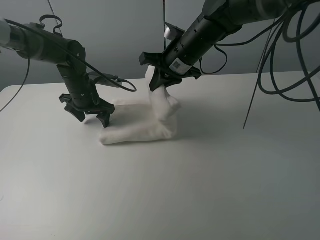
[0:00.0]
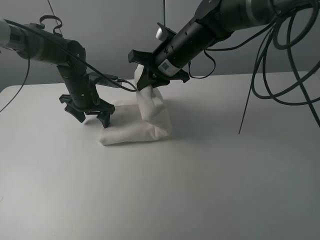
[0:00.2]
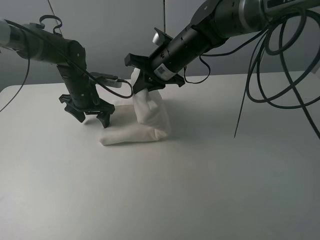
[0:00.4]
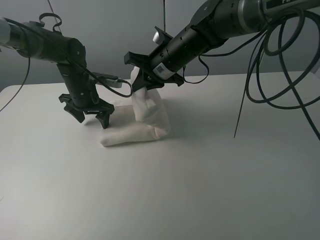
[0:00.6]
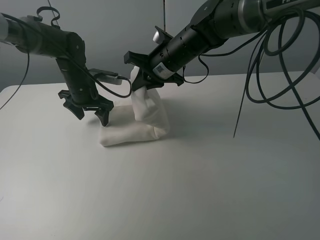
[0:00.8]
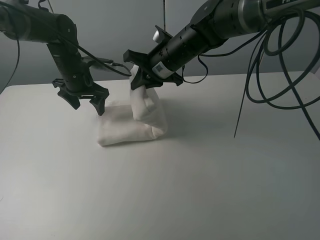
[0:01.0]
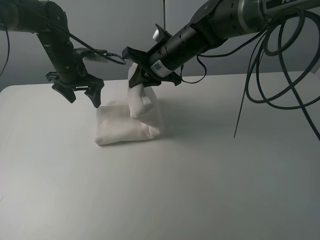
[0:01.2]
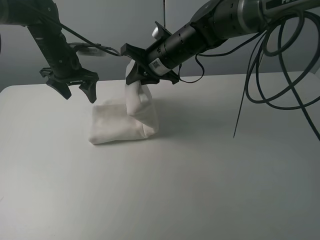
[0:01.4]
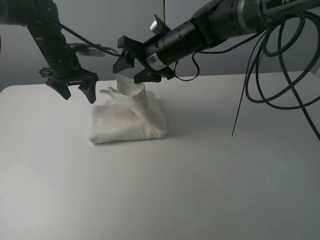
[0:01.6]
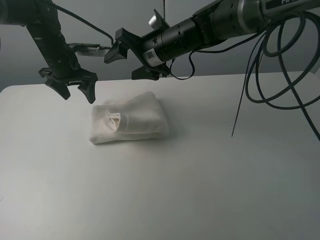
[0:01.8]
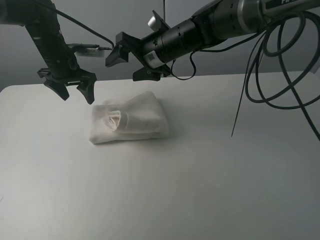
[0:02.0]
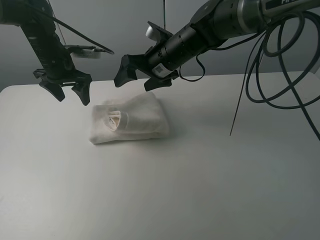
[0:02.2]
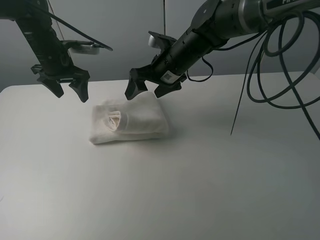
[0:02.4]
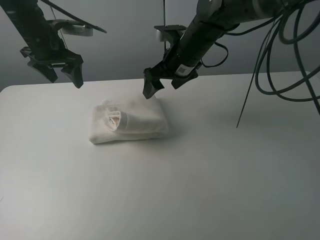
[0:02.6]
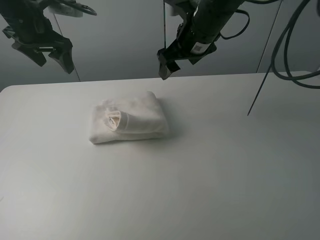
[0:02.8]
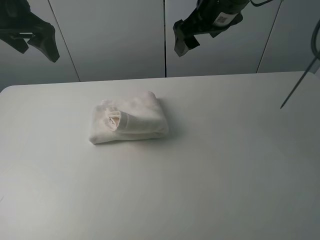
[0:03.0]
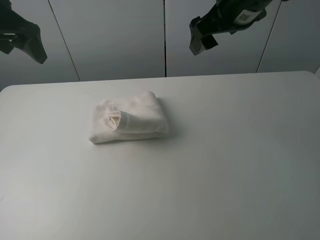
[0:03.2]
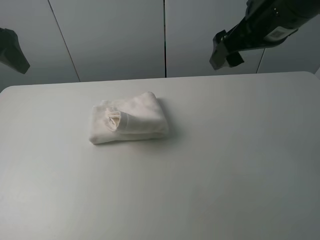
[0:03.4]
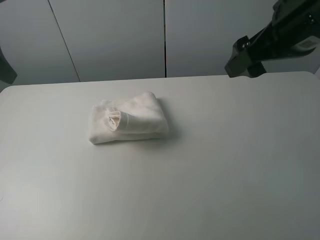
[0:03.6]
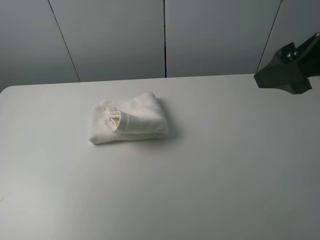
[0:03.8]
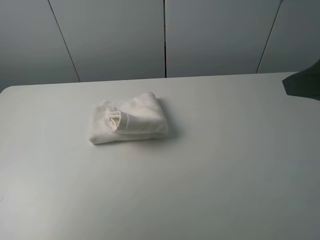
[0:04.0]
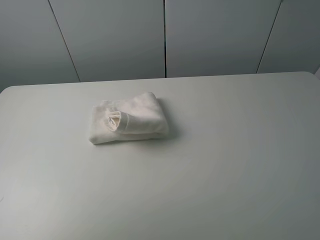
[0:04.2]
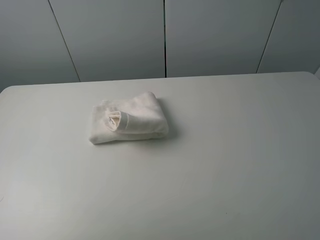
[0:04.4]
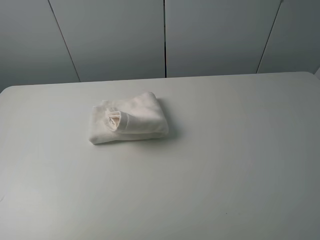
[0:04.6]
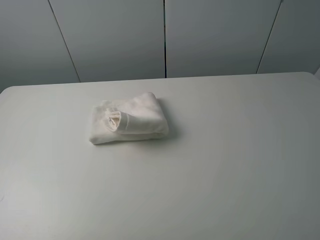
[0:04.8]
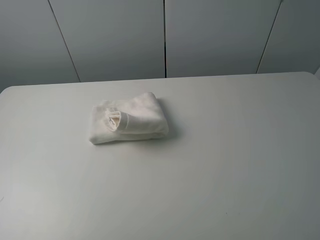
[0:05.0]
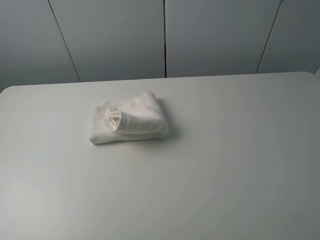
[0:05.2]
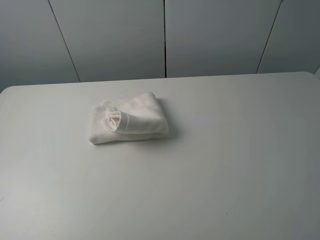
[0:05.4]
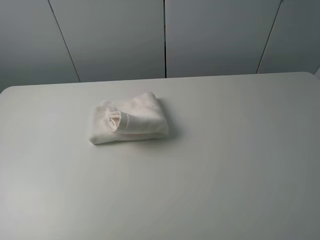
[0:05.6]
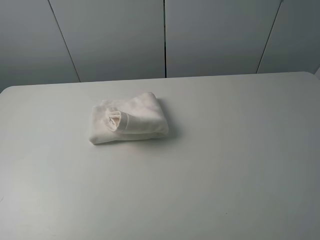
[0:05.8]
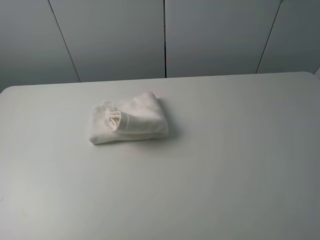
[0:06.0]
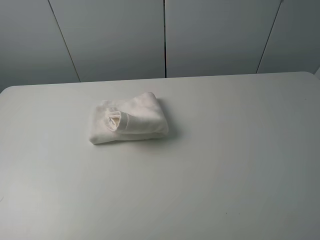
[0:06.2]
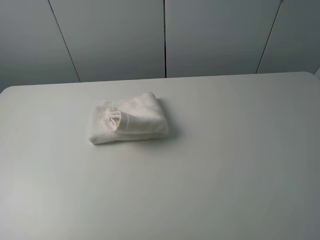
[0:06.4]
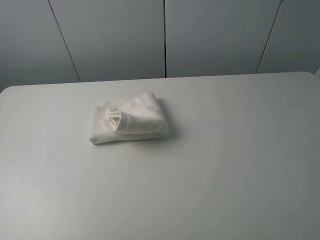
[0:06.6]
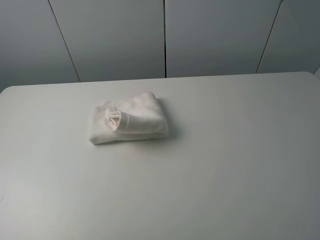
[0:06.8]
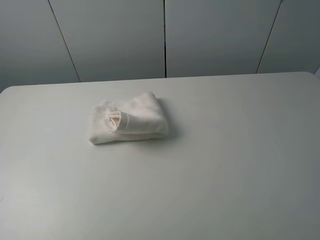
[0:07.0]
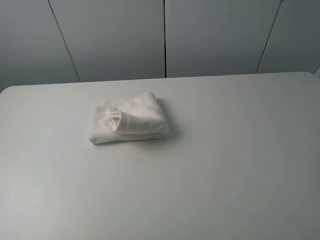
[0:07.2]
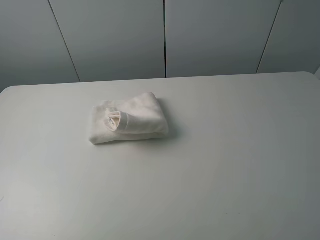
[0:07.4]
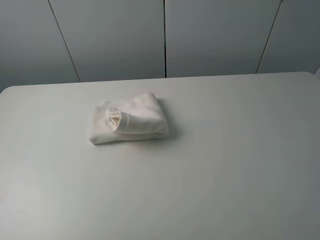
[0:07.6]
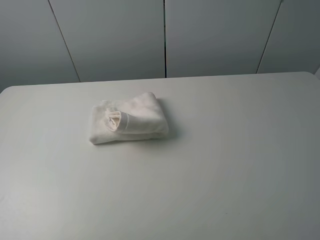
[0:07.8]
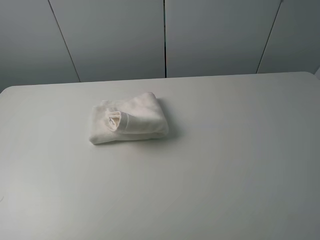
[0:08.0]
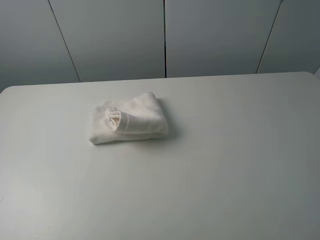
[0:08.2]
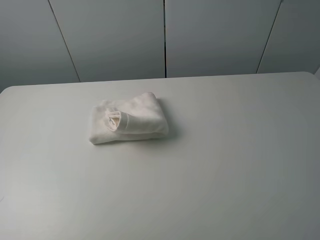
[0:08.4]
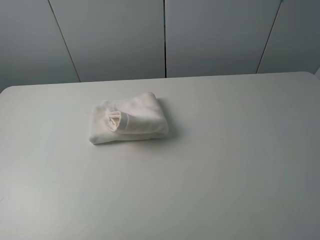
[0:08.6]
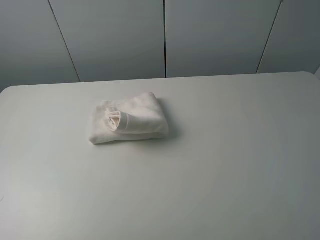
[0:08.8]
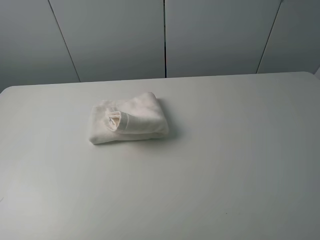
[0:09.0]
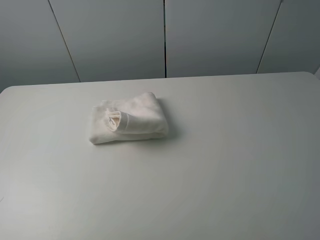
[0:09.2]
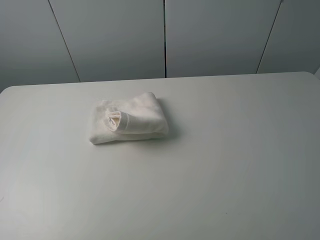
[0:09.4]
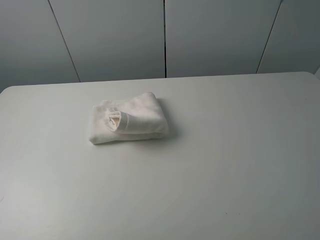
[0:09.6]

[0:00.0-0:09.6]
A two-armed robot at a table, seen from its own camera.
Task of the whole recording: fold the towels on the table.
Step, 0:00.0 to 0:02.0: Fold the white towel from right to left with right gripper.
0:00.0 to 0:01.6: The right gripper opens up. The left gripper heads upward, covering roughly 10 cm.
0:01.6 to 0:03.2: The left gripper shifts some 20 cm upward and backward; the right gripper travels upward, to the right and backward by some 20 cm.
0:03.2 to 0:04.8: The left gripper goes roughly 30 cm backward; the right gripper moves backward and to the right, some 35 cm.
0:08.0 to 0:09.6: The two grippers keep their place.
